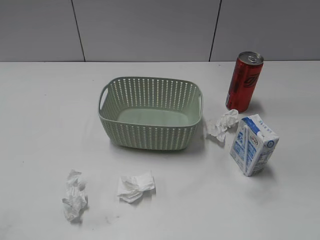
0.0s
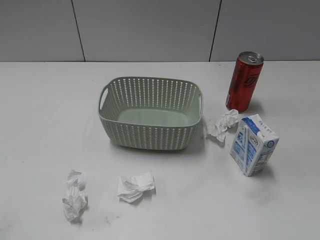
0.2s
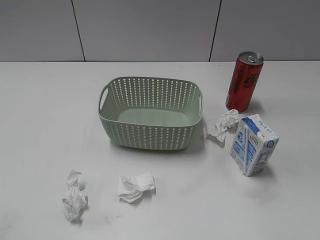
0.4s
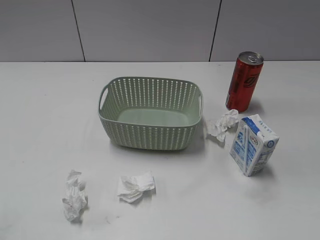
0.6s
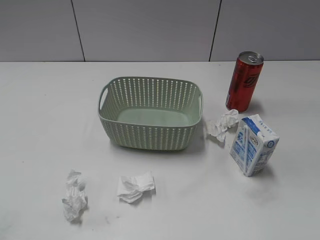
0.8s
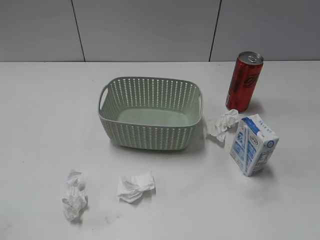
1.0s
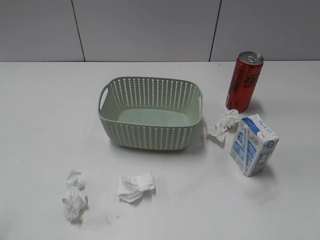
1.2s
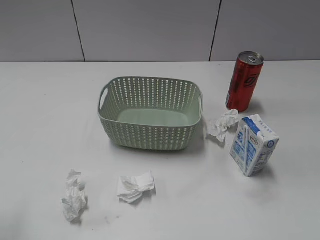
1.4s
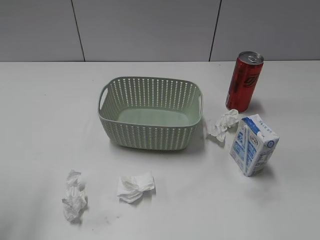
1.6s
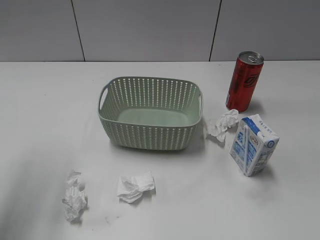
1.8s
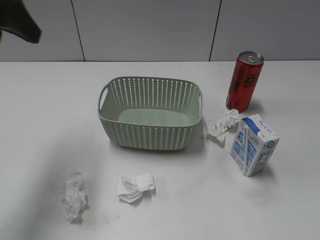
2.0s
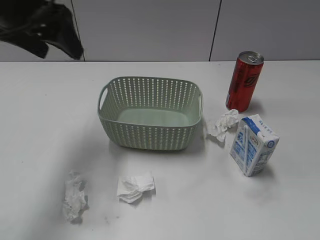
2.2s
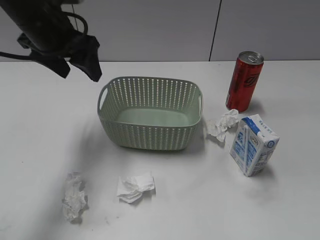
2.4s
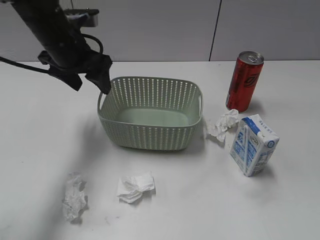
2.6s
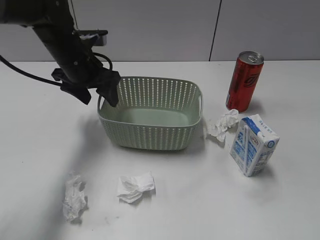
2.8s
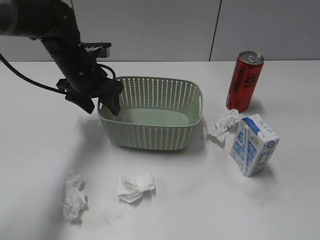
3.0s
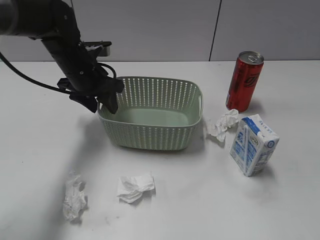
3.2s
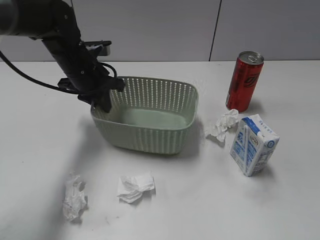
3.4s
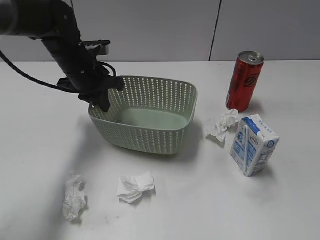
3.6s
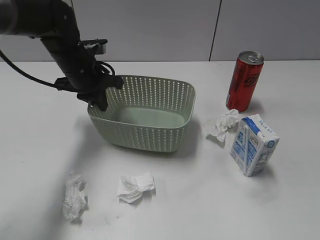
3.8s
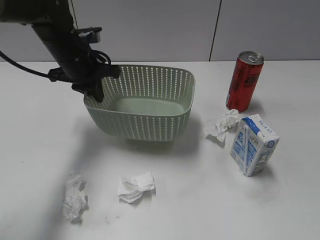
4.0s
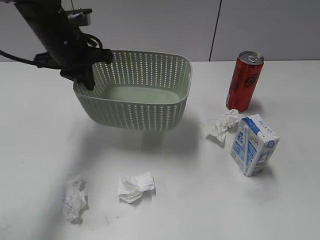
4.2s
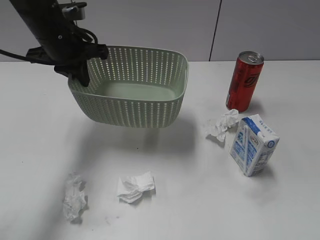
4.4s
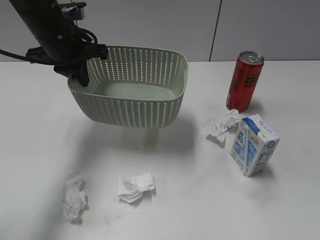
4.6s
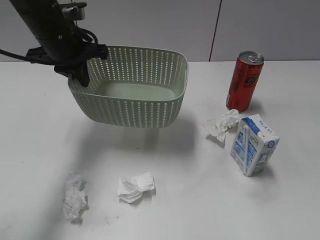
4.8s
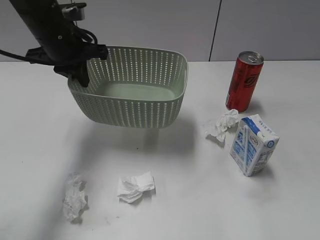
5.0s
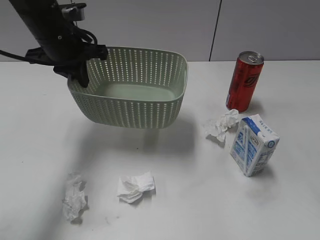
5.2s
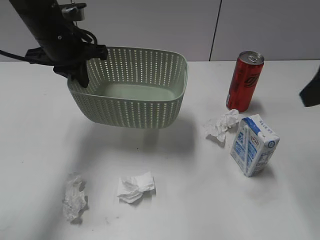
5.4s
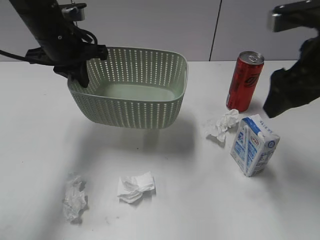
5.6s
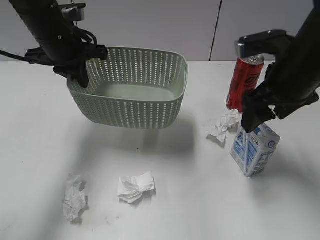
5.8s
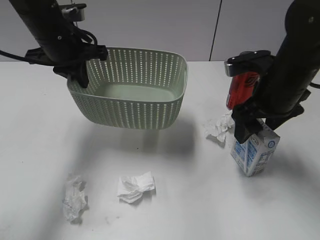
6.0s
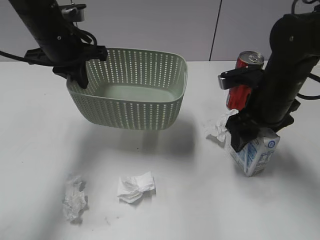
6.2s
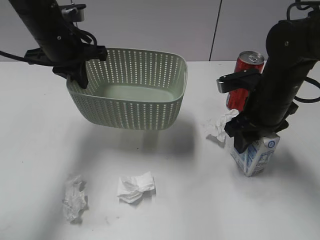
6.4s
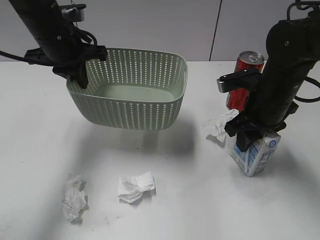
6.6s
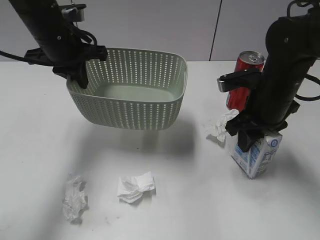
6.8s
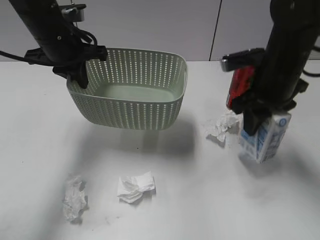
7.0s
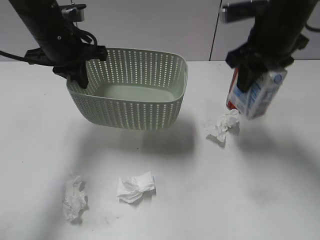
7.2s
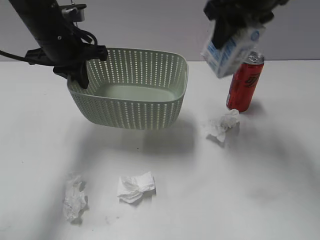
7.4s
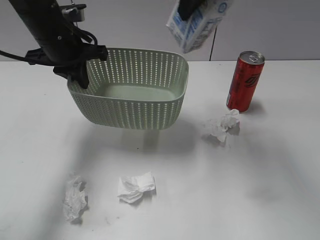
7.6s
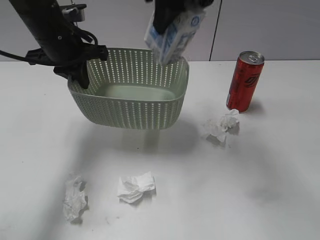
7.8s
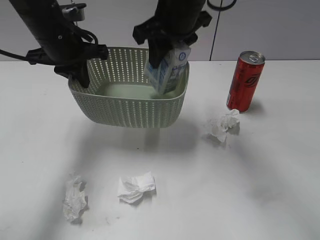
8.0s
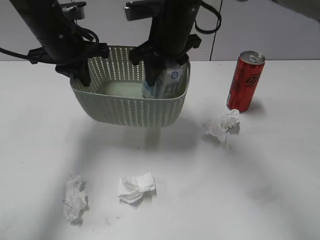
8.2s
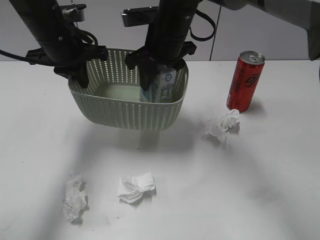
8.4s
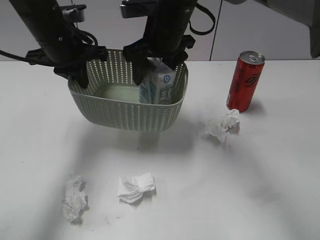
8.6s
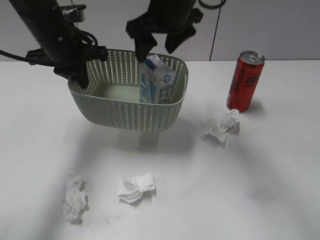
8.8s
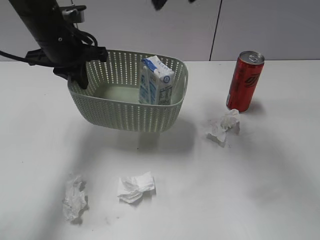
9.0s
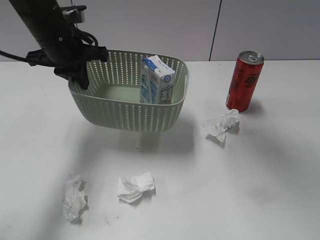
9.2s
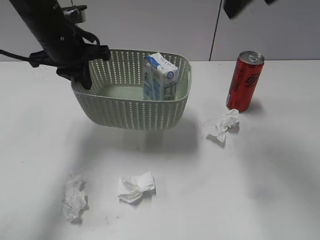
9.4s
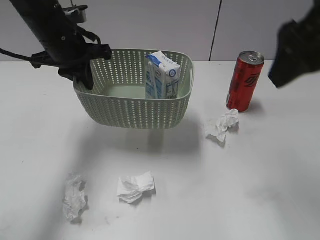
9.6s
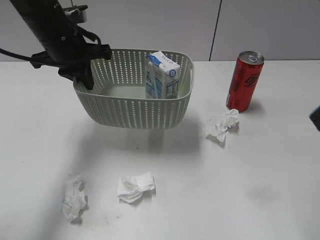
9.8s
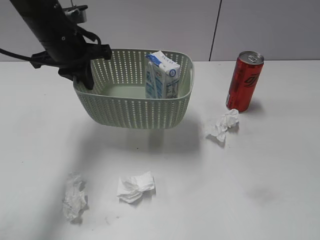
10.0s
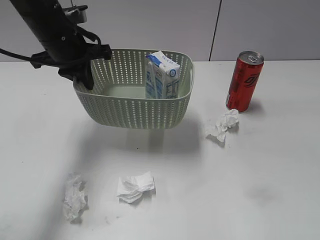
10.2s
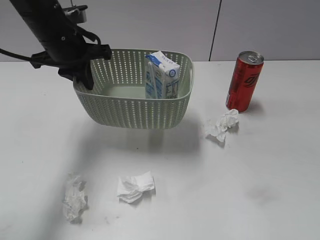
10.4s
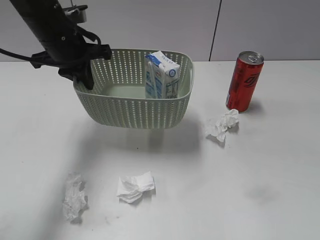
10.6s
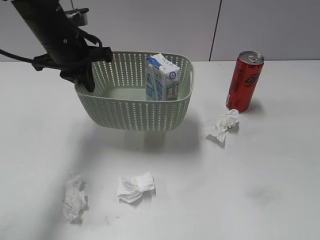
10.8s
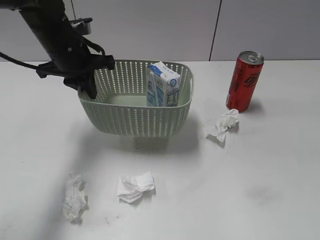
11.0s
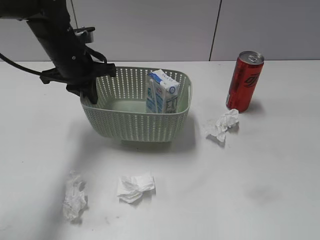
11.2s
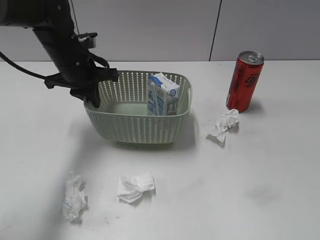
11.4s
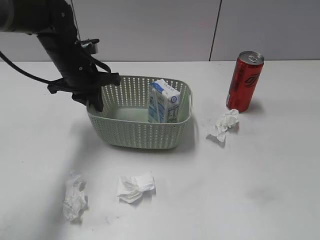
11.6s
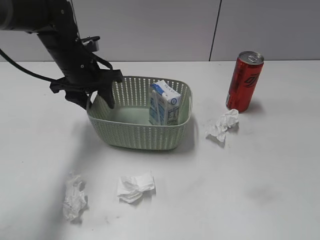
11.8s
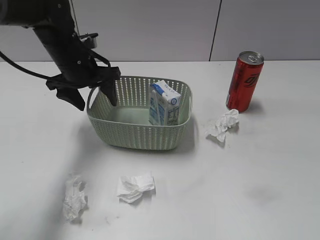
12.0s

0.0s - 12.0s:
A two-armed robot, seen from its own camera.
Step, 2.0s - 3.6s: Grasp the basket with left gripper.
Step, 3.8s - 4.4s: Lift the basket with left gripper.
Step, 4.6s - 6.6s: Grasp the milk with right gripper.
Step, 6.8s - 8.8s: Place the milk in the basket with right gripper.
1.6s - 3.0s: The left gripper shifts approximately 35 cm forward, downward and to the right.
3.0s - 4.4s: The left gripper shifts roughly 10 cm upward, and closes up.
4.4s - 6.0s: The right gripper heads forward, covering roughly 30 cm.
6.0s - 7.6s: The right gripper heads upward and to the left, covering some 20 cm, and closes up.
7.6s - 9.0s: The right gripper goes downward and returns, roughly 15 cm each way, and opens up.
9.0s - 10.4s: The right gripper moves backward and to the right, some 40 cm.
10.4s - 12.0s: The left gripper heads downward, covering approximately 5 cm, and opens its fingers.

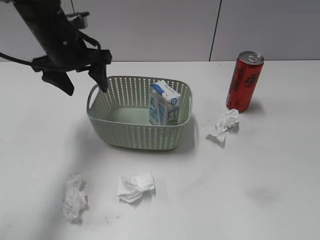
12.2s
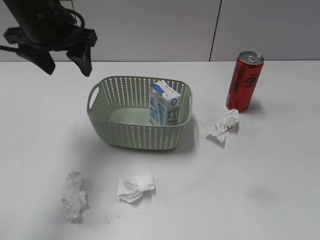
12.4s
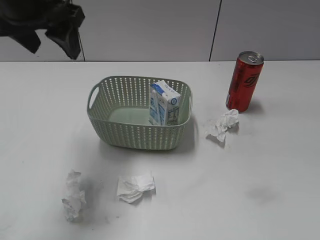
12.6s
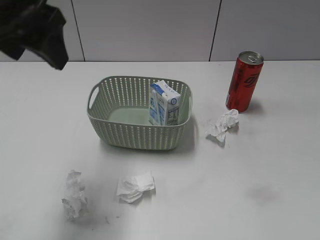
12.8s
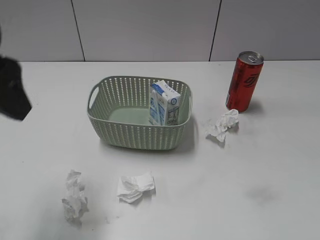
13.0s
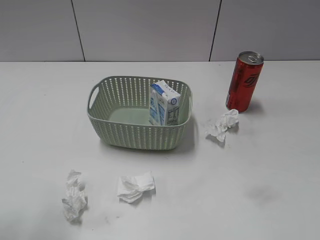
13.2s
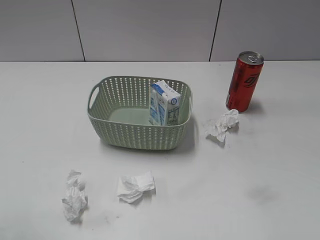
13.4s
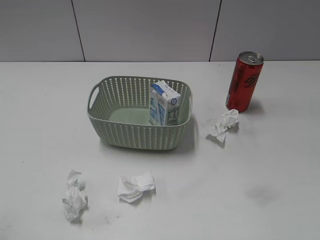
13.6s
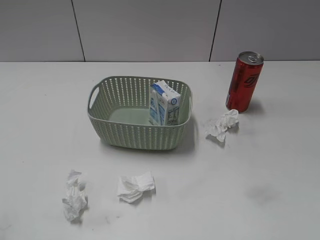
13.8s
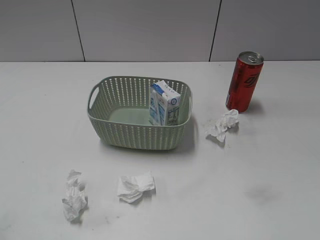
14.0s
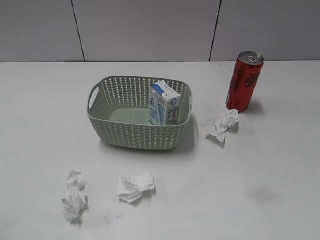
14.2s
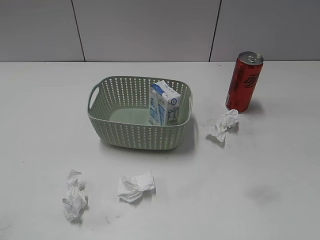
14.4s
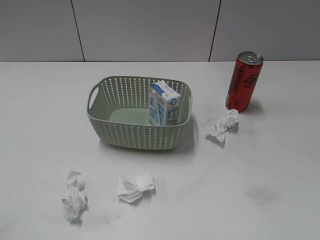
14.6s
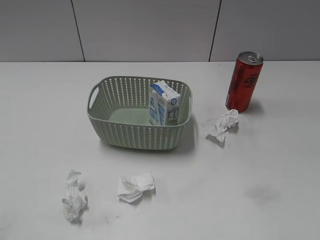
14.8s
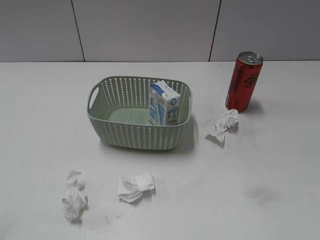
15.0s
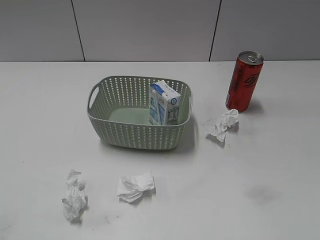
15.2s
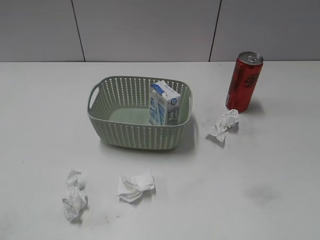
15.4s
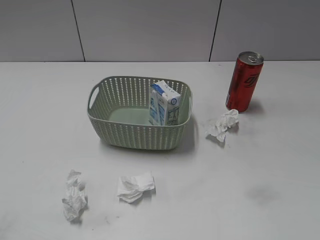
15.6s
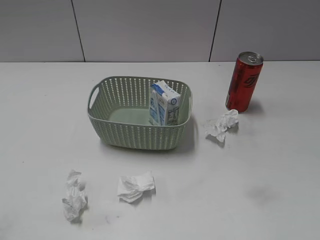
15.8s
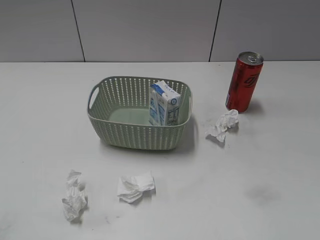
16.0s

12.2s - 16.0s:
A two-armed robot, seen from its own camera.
12.2s - 13.4s: The left gripper is displaced backward by about 30 cm.
